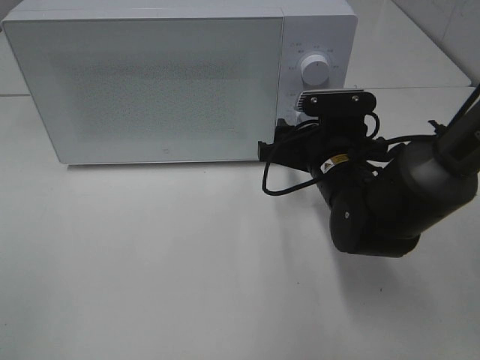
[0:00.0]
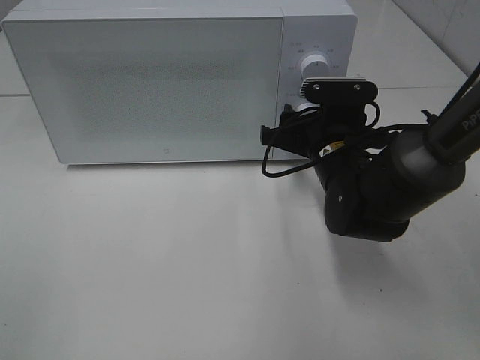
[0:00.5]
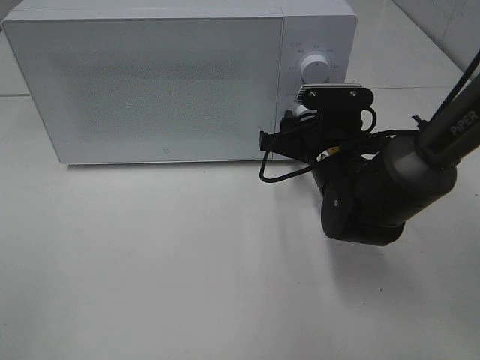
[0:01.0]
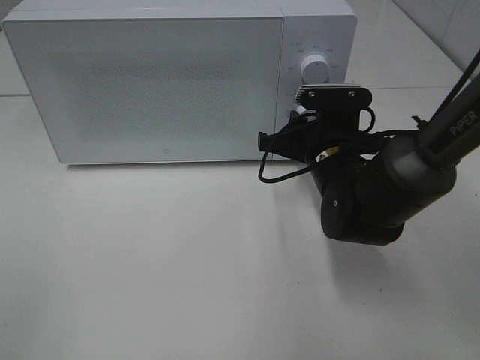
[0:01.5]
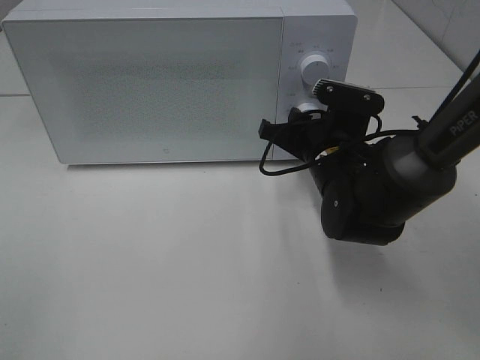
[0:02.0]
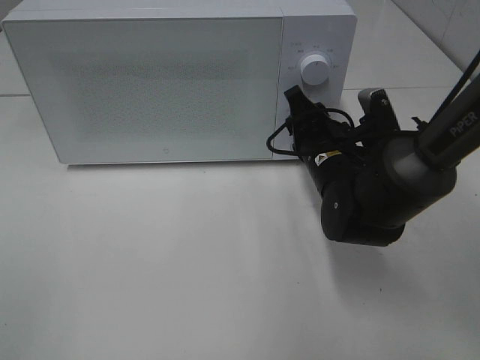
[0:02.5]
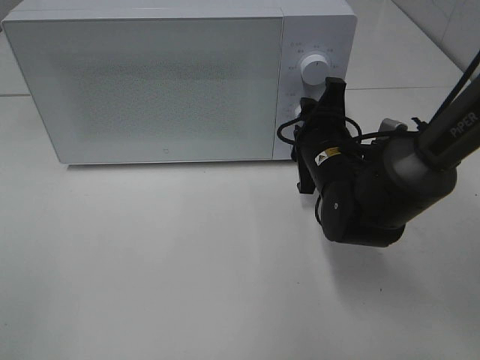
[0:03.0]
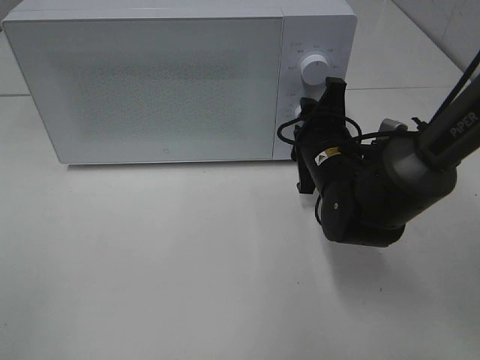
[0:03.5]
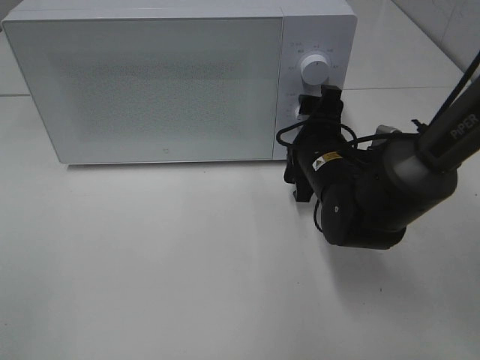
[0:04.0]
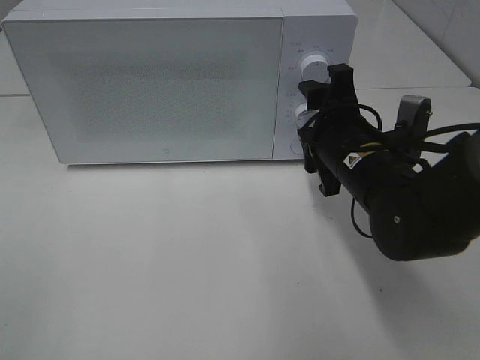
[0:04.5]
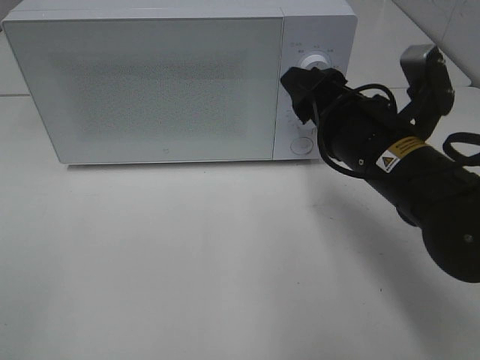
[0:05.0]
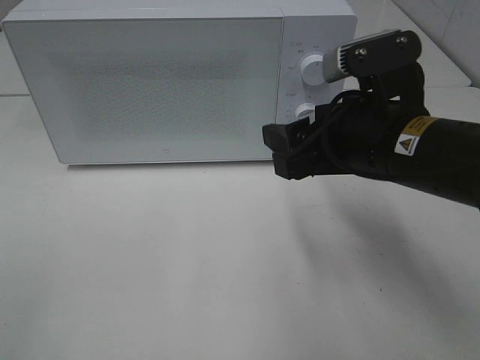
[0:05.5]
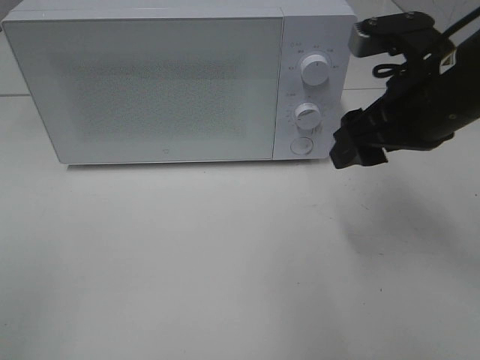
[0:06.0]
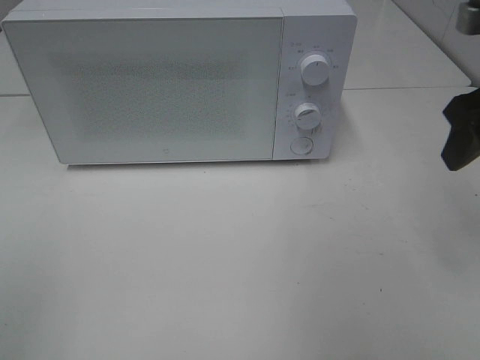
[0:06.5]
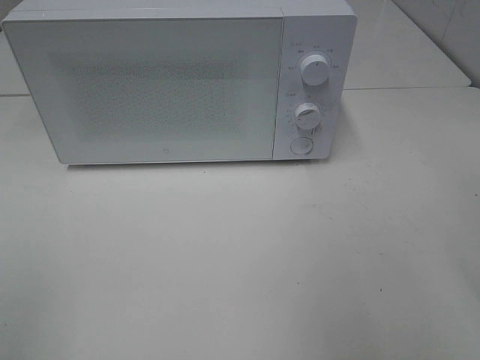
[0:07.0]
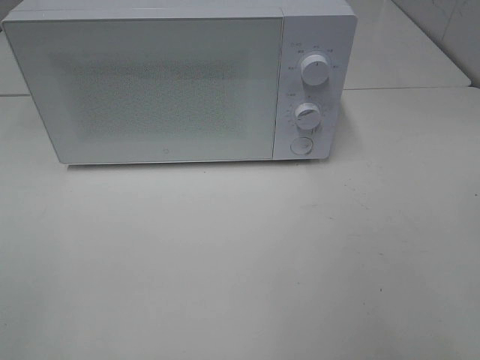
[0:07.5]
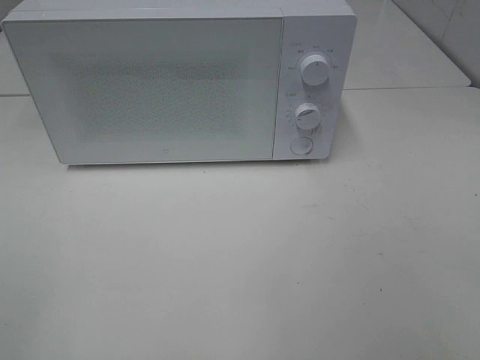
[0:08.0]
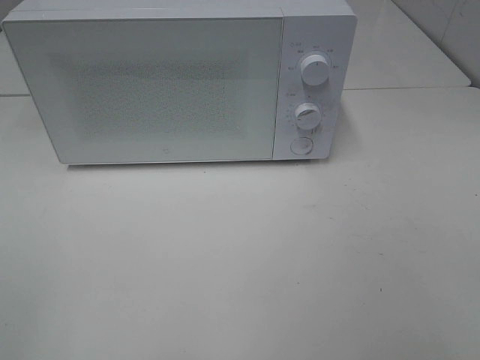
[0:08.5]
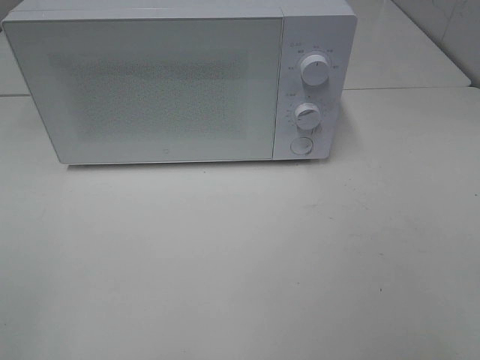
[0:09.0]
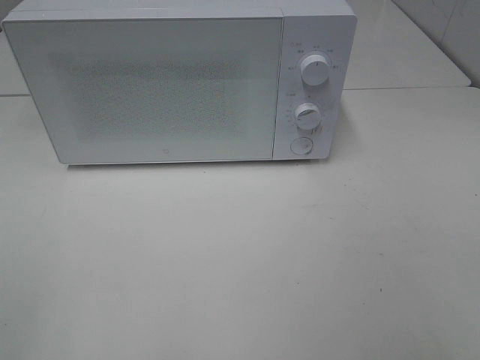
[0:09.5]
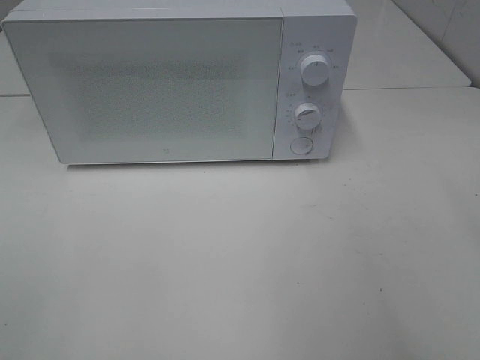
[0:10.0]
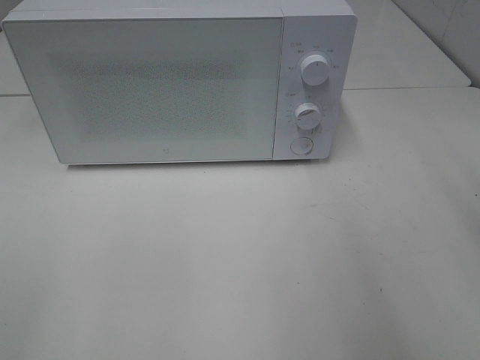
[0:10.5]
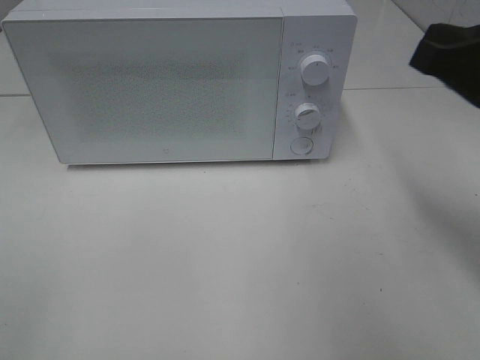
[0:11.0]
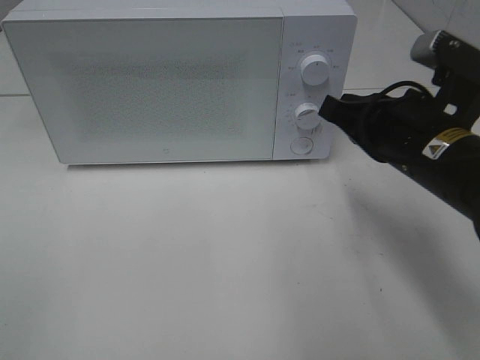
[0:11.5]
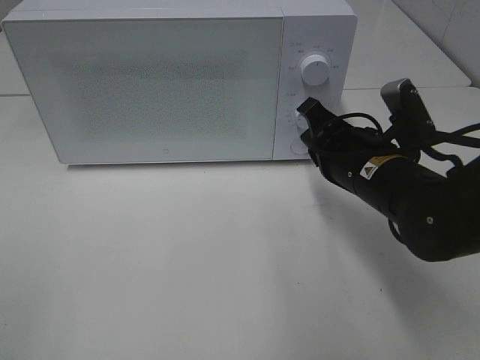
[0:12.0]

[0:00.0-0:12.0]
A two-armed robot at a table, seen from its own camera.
Task of the whole recording: Heat Sandwich.
Step, 0:00.0 to 0:04.5: Right hand: twist timer button.
0:00.0 to 0:02.0: The right gripper closes.
0:02.0 to 0:04.0: The right gripper opens its fingers.
0:04.0 to 0:06.0: The right gripper shifts roughly 15 cm upward and to the right.
0:06.0 to 0:08.0: The right gripper travels backward by roughly 25 cm.
0:10.0 to 0:12.0: The right gripper is displaced downward, forward and to the left by roughly 30 cm, and closes up.

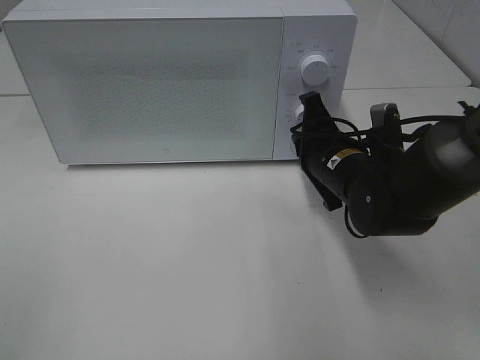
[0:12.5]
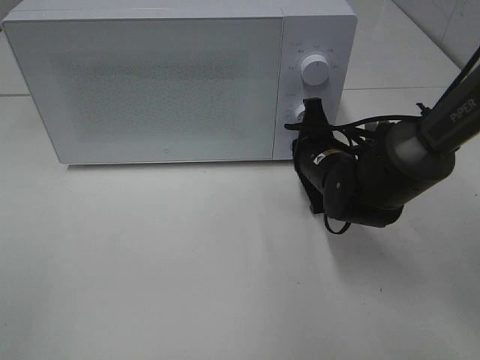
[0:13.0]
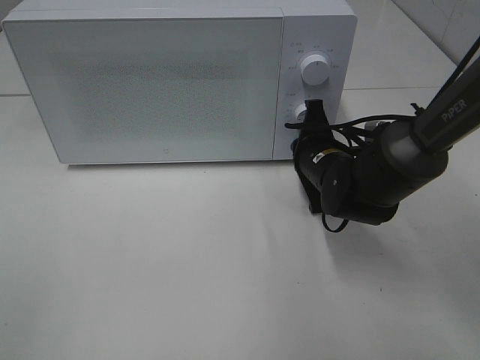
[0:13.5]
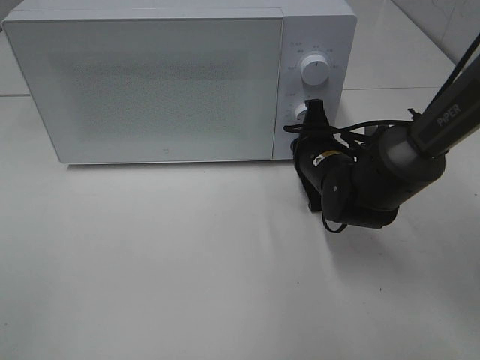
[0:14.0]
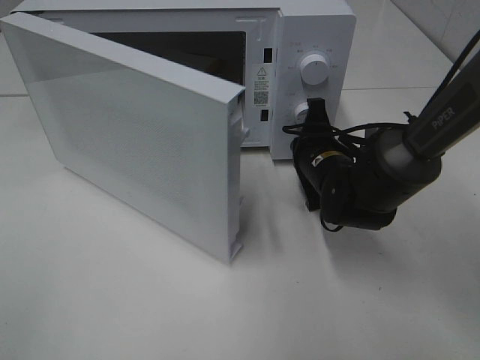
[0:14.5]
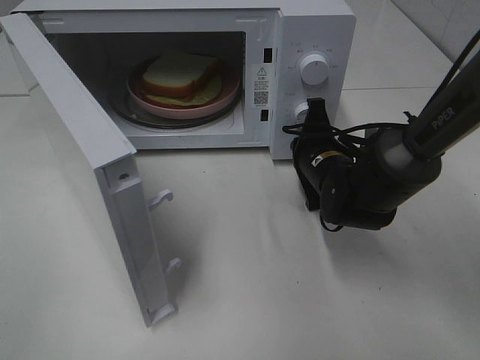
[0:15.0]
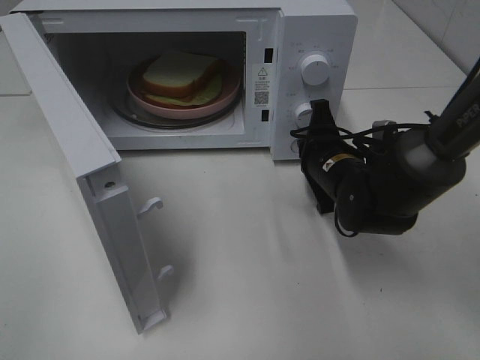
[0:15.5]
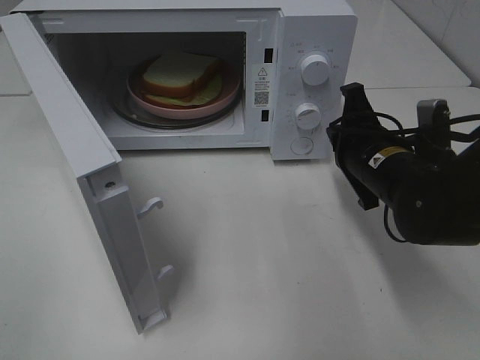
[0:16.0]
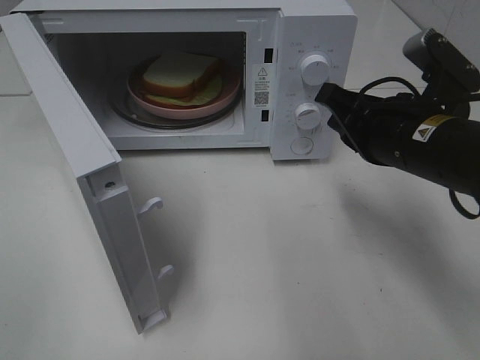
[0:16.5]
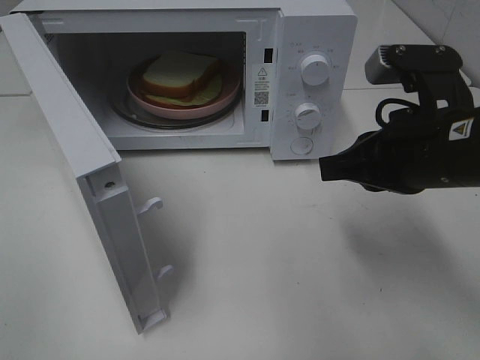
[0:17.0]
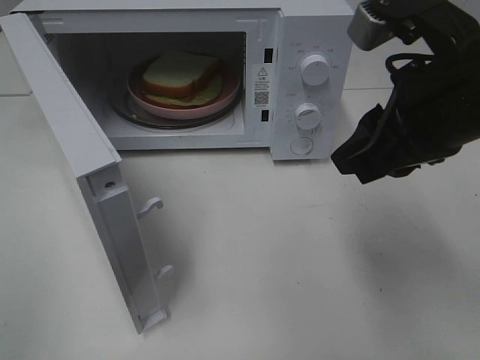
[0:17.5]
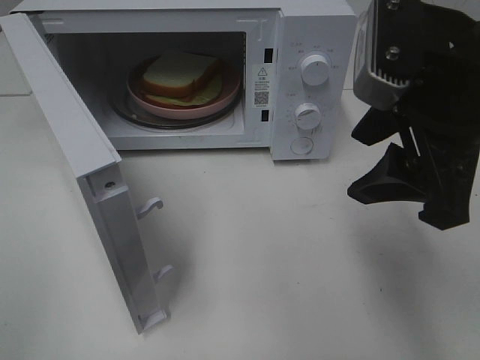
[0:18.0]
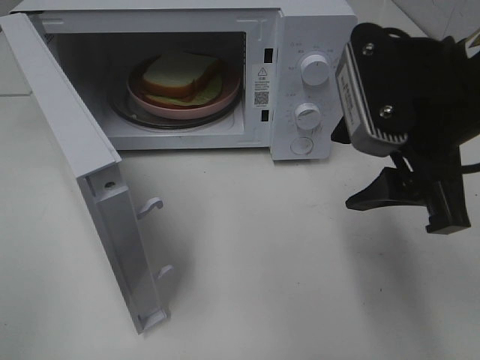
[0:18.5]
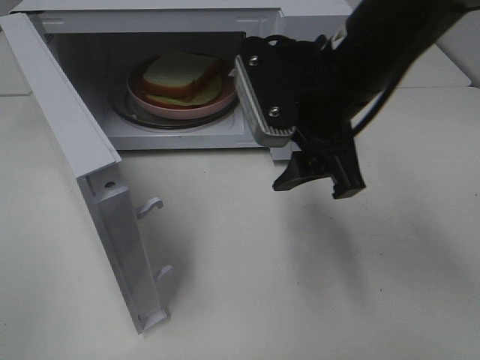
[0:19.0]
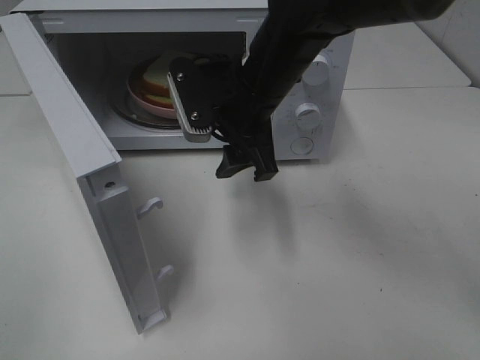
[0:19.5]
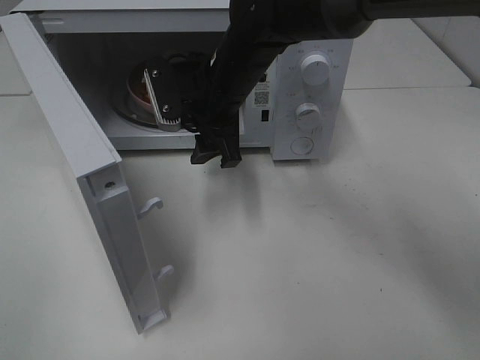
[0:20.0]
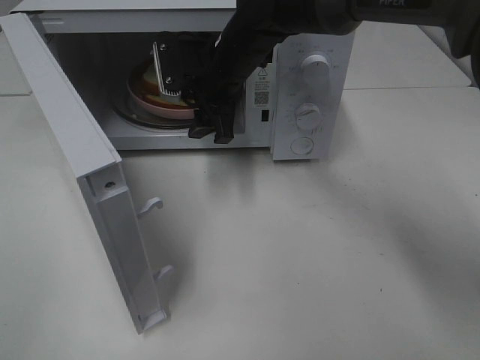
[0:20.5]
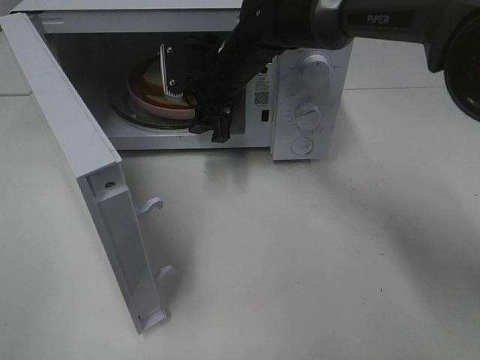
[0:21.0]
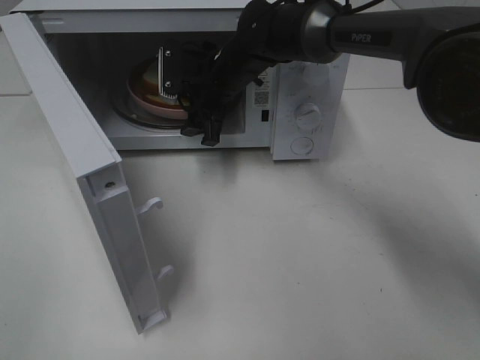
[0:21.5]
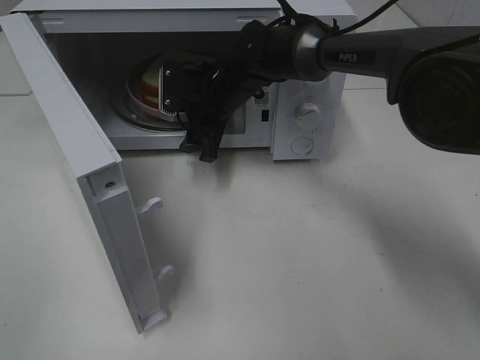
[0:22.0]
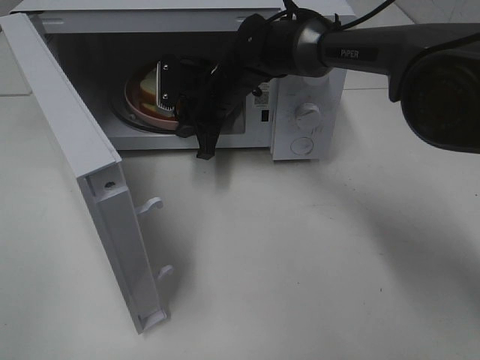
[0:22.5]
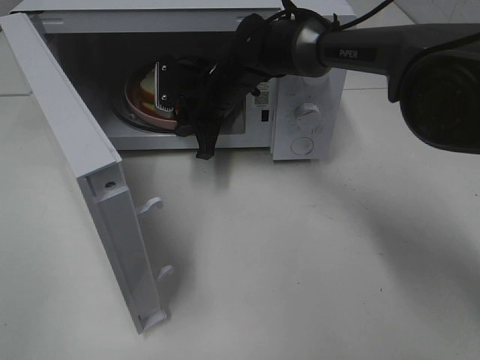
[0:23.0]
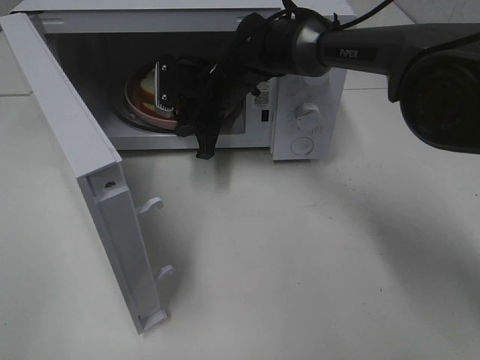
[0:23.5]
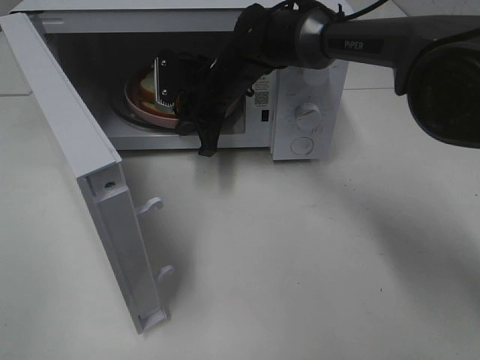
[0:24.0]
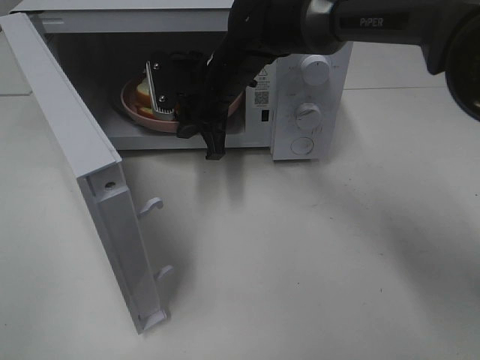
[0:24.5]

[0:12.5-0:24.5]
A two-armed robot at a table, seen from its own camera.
Task of the whole recording: Heat Sandwich.
Step, 0:12.5 to 0:16.0: Right hand: press the switch.
Step, 0:16.5 to 0:23.0: Right hand: grab the plate with the sandwich.
0:14.5 to 0:16.5: The right gripper shifts approximately 15 cm upward and backward.
0:16.5 to 0:18.5: The right gripper is displaced upward by roughly 10 cm, and opens up.
0:18.5 to 0:20.5: The right gripper moves forward, to the left and downward, approximately 30 cm.
0:20.5 to 0:22.5: The right gripper moves downward, approximately 5 cm, and closes up.
0:22.5 to 0:24.5: The right gripper ends up roughly 5 cm from where it was.

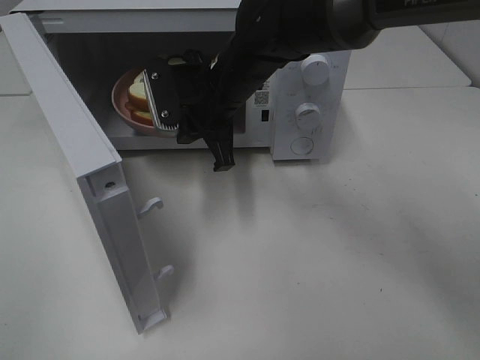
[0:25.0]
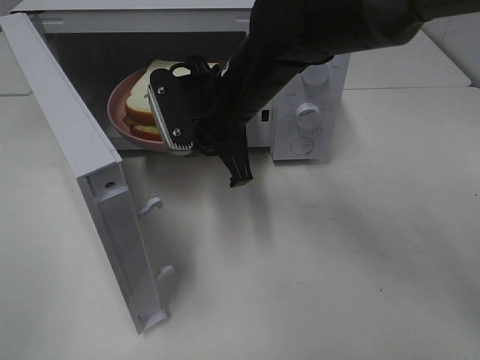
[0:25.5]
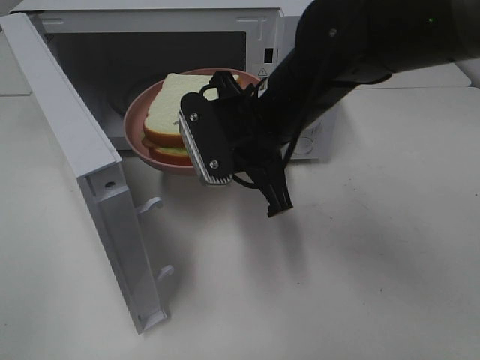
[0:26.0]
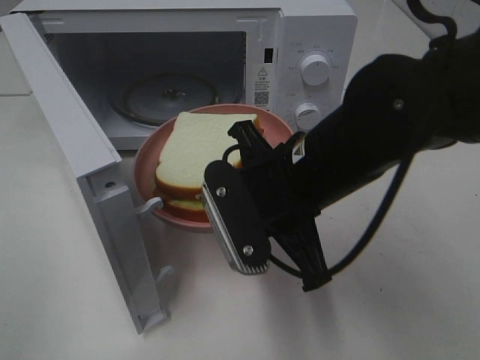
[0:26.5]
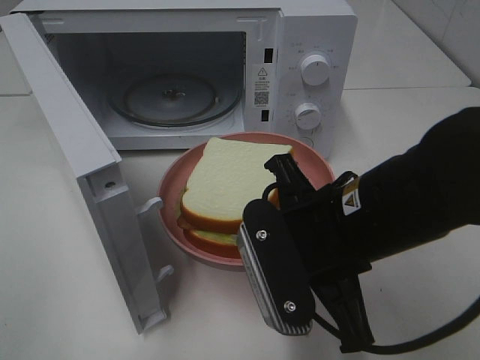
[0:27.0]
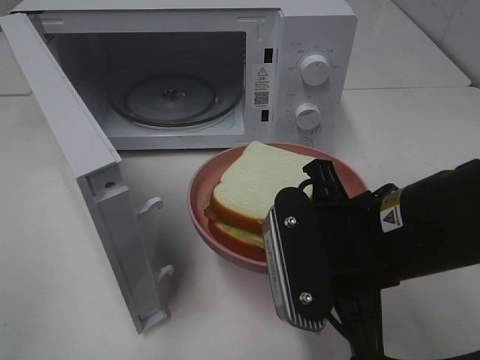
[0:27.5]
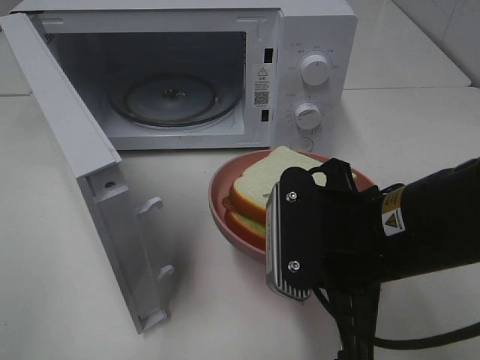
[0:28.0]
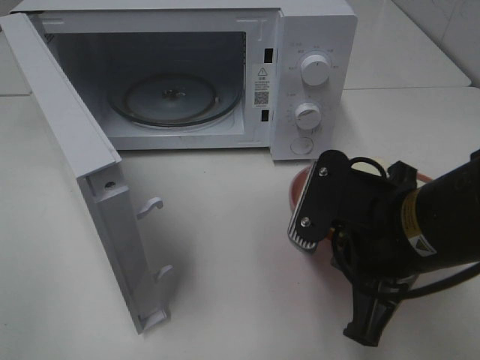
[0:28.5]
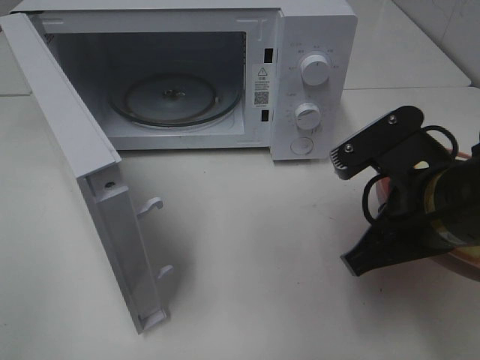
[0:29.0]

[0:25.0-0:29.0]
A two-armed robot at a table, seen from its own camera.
Task of the whole recording: Heat Sandwich.
0:25.0 to 0:27.0: The right gripper travels backward and to the right by roughly 25 cm.
0:27.0 to 0:29.0: The right gripper goes roughly 5 cm to the right.
